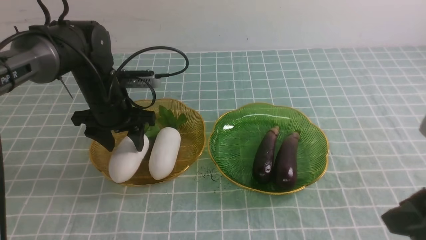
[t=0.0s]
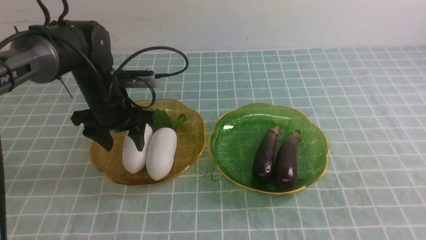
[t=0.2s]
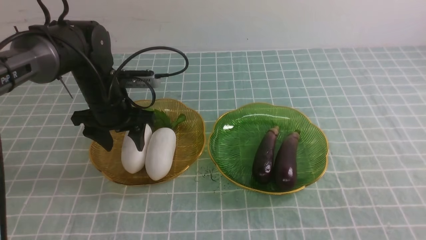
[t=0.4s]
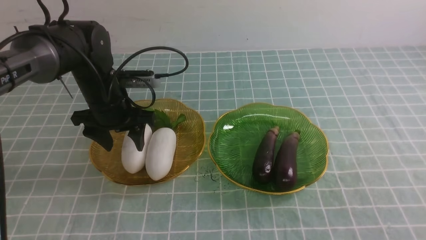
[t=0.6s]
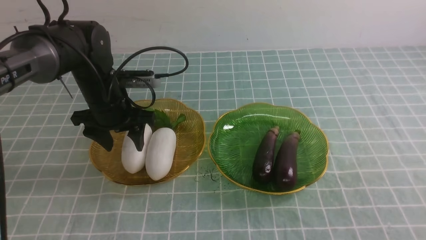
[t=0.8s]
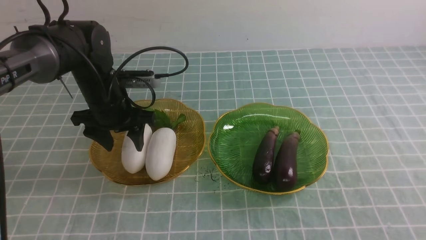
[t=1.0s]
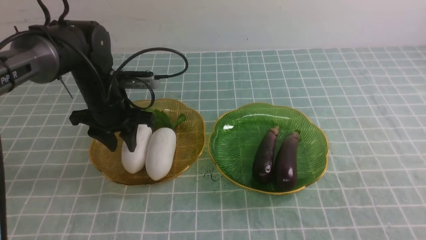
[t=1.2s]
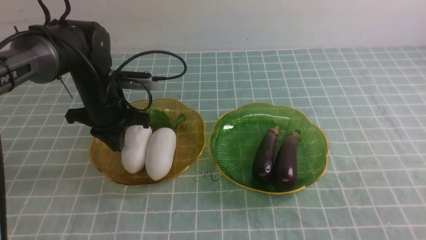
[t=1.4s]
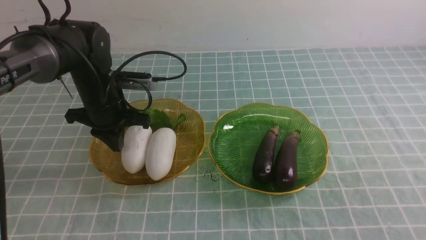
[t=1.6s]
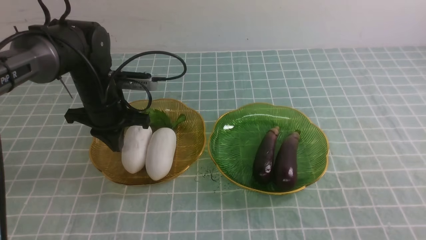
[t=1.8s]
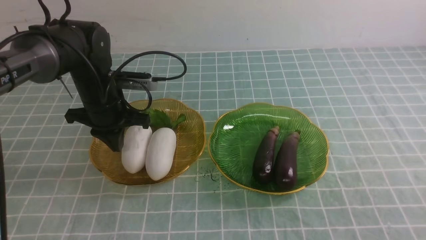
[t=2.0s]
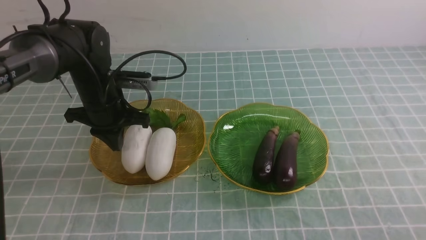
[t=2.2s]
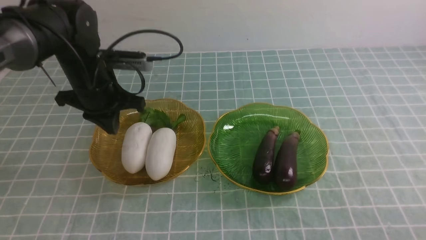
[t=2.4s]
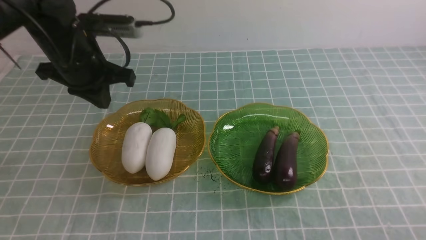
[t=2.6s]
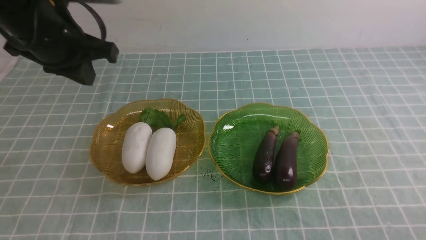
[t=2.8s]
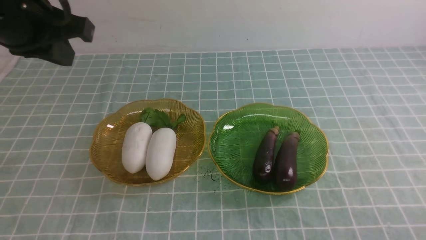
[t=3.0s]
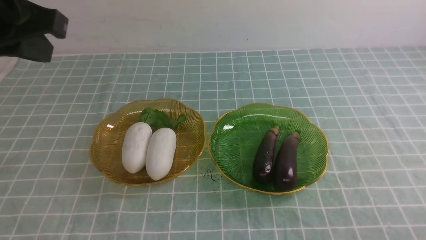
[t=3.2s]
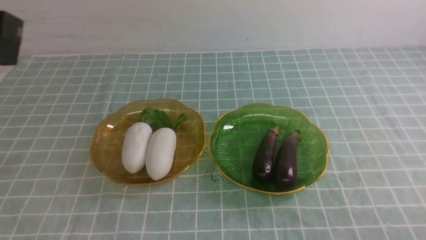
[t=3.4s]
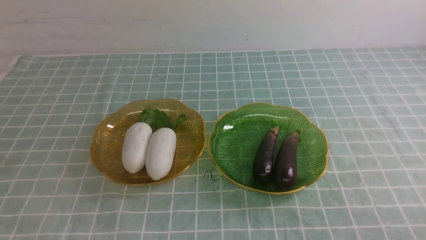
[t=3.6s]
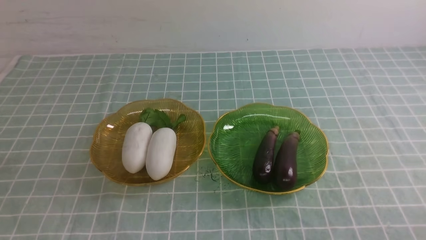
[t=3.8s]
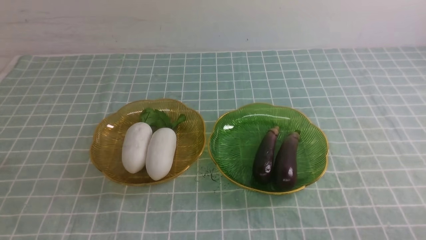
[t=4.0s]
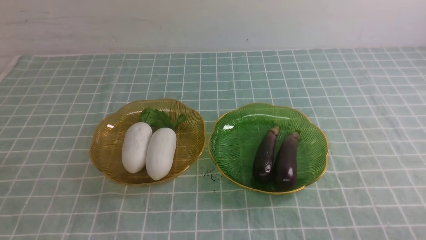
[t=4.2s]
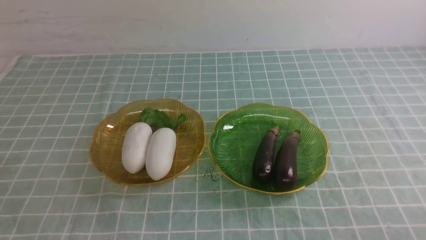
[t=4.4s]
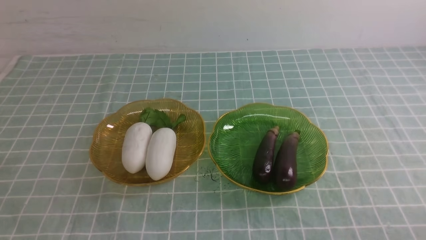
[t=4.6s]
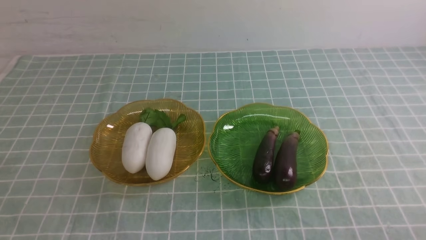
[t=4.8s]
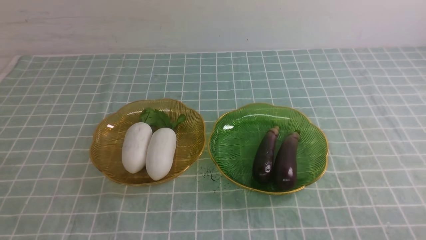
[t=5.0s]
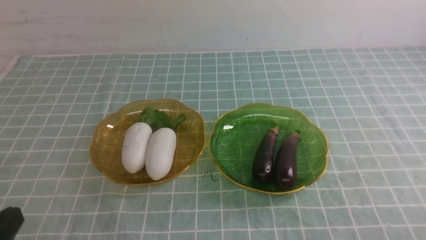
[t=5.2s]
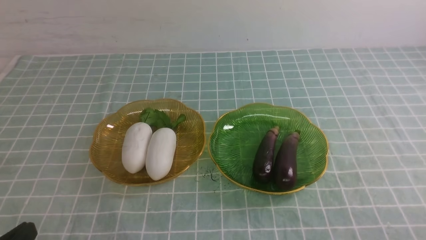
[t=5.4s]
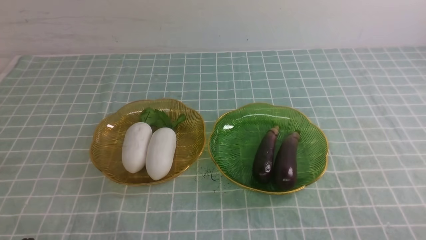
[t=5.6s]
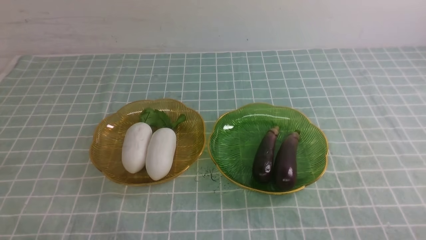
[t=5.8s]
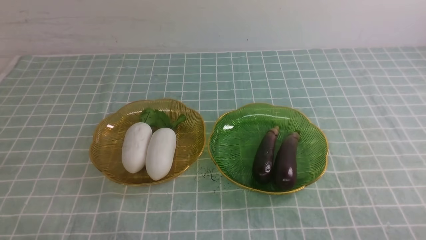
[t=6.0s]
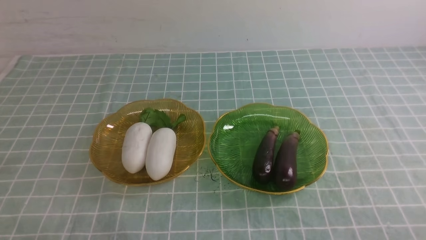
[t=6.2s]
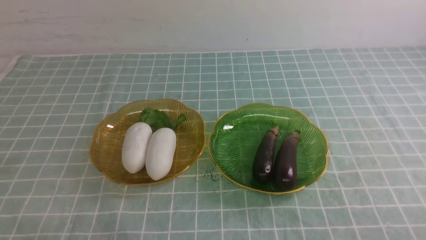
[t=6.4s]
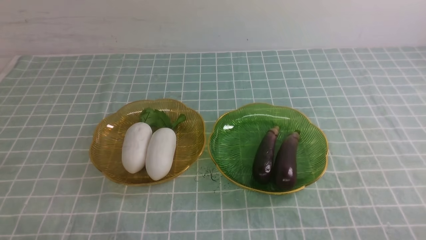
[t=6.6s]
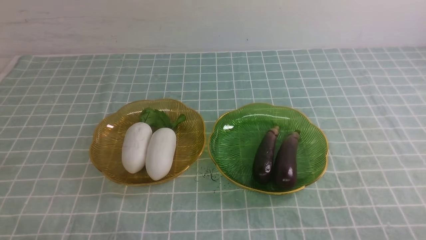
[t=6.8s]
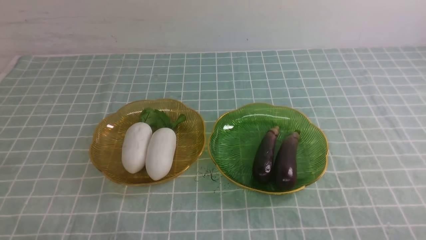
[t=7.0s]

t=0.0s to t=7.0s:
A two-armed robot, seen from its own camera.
t=0.0s to t=1.4s: The left gripper closes up. Meanwhile the right gripper shifts some 10 cm backward and to the right, and closes up.
t=1.4s to t=2.8s: The left gripper travels upward by approximately 15 cm. The right gripper goes some 10 cm downward.
t=2.8s to t=4.2s: The left gripper travels backward by roughly 30 cm.
t=5.6s to t=7.0s: The two grippers keep their place.

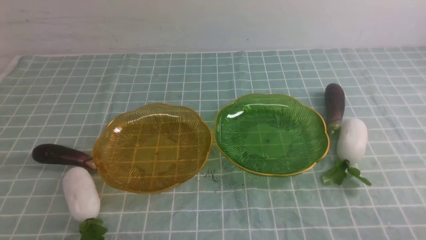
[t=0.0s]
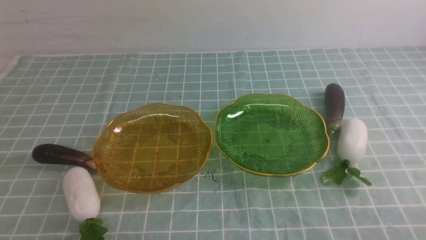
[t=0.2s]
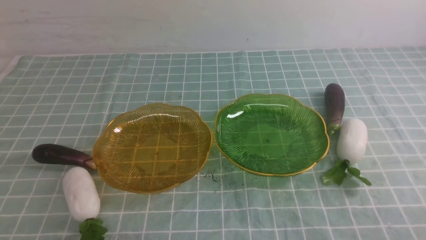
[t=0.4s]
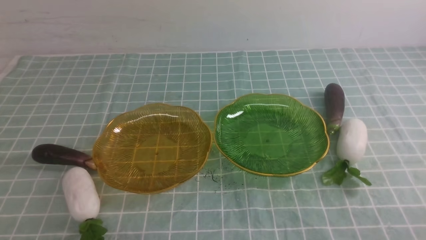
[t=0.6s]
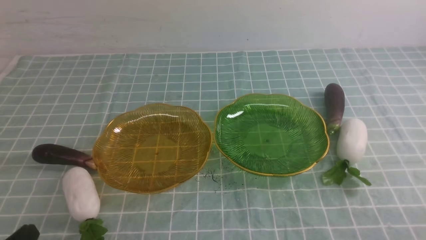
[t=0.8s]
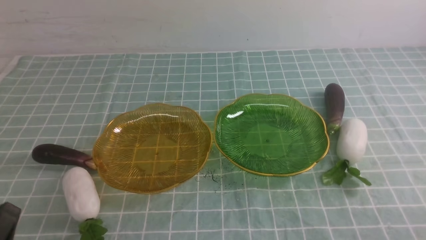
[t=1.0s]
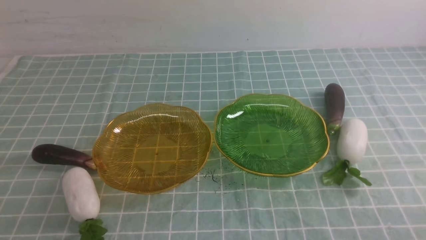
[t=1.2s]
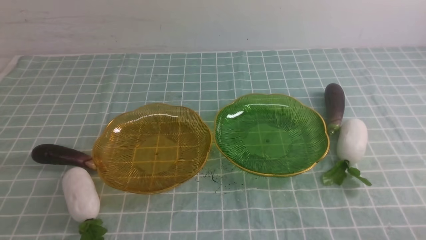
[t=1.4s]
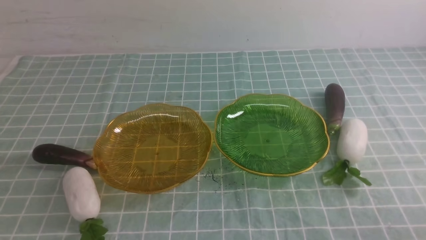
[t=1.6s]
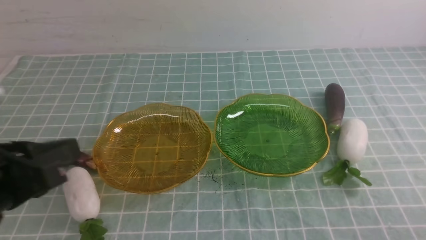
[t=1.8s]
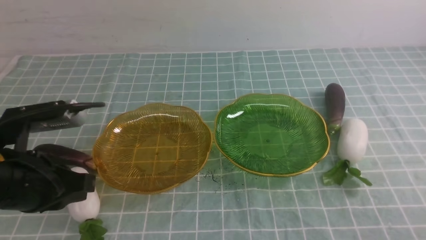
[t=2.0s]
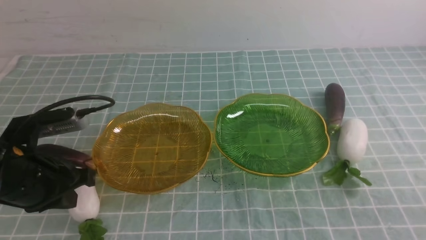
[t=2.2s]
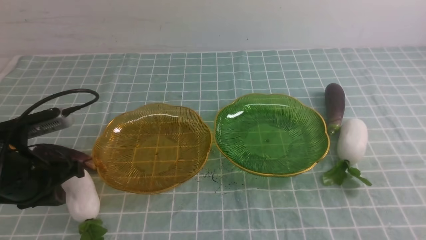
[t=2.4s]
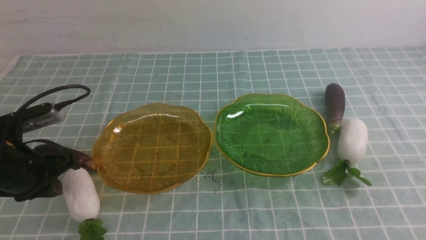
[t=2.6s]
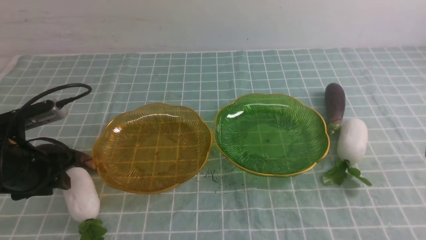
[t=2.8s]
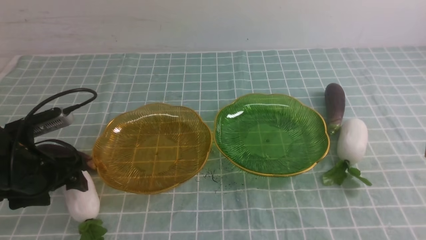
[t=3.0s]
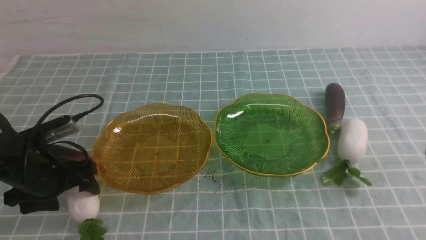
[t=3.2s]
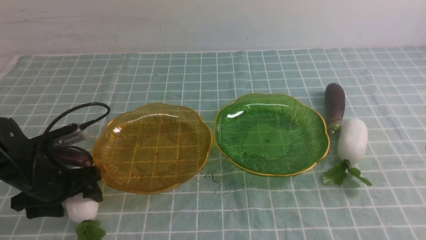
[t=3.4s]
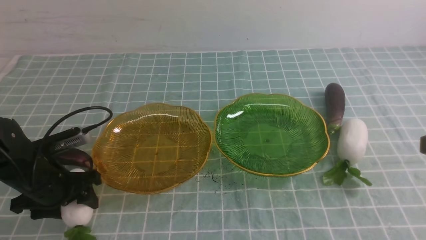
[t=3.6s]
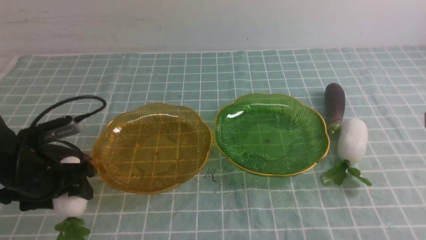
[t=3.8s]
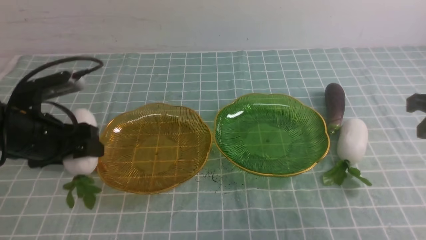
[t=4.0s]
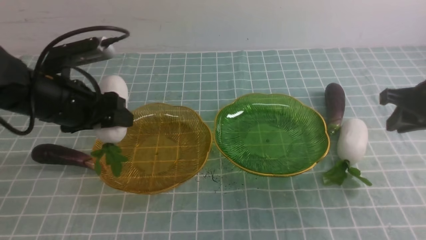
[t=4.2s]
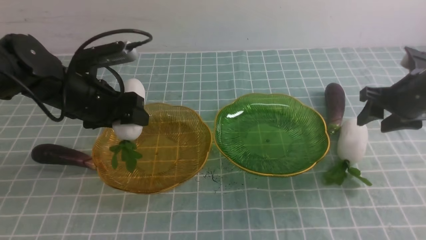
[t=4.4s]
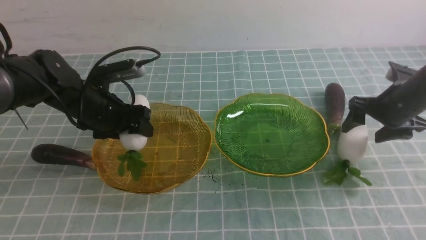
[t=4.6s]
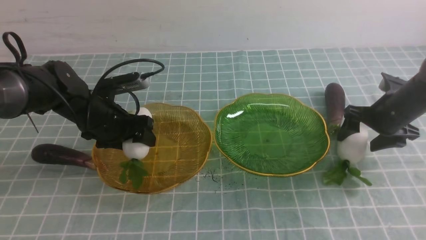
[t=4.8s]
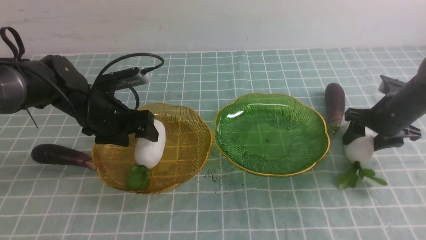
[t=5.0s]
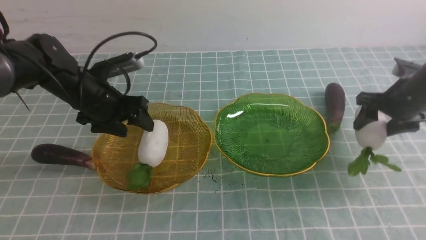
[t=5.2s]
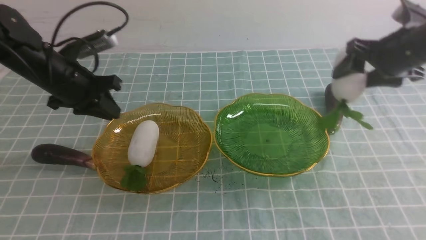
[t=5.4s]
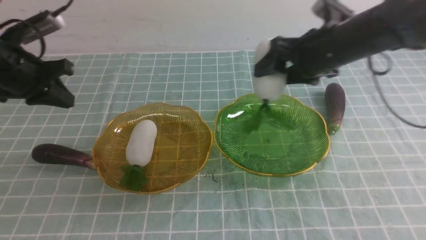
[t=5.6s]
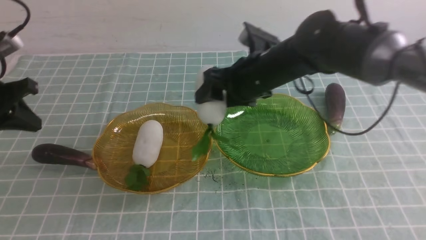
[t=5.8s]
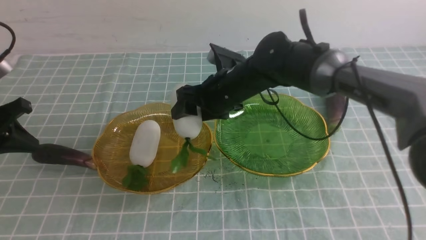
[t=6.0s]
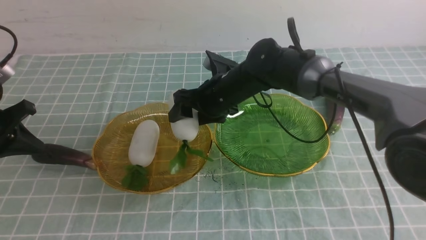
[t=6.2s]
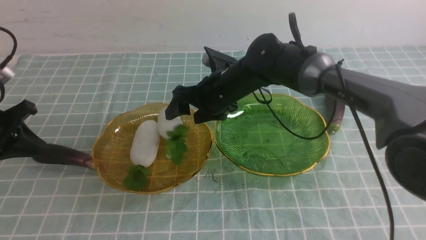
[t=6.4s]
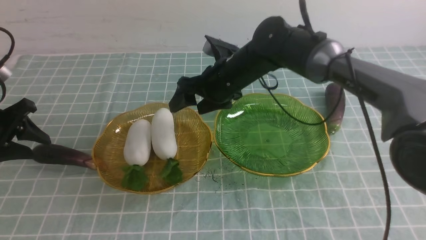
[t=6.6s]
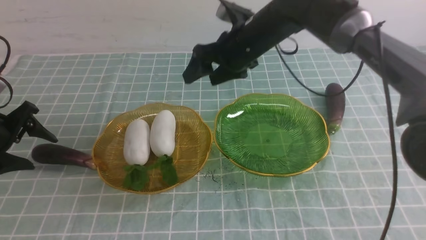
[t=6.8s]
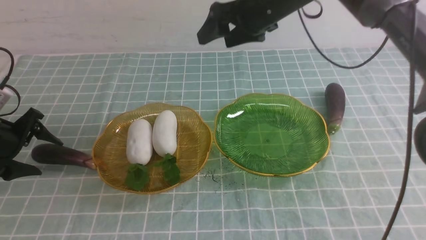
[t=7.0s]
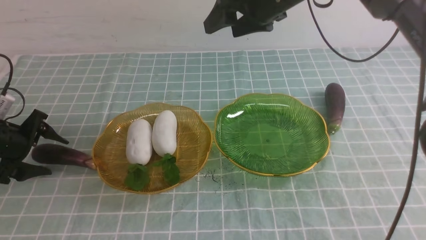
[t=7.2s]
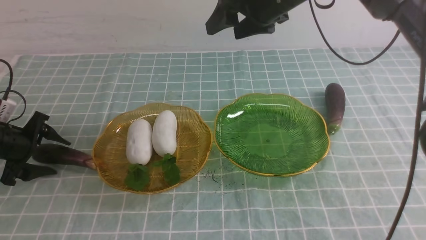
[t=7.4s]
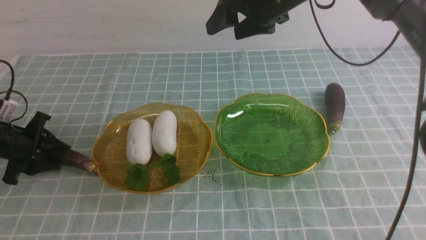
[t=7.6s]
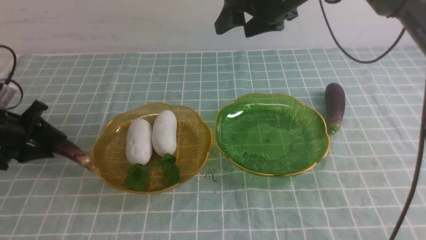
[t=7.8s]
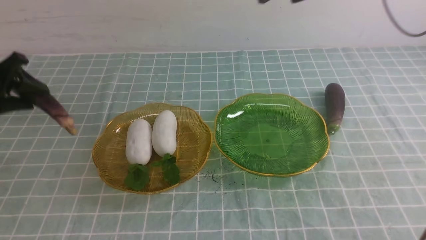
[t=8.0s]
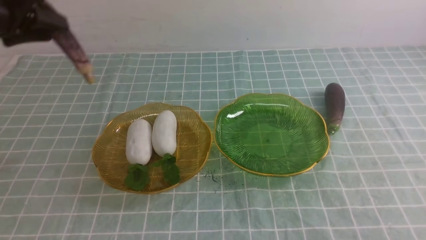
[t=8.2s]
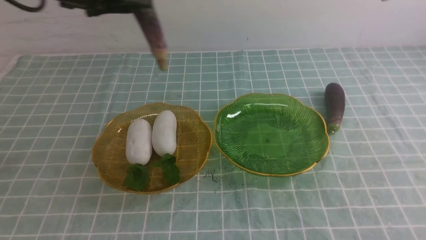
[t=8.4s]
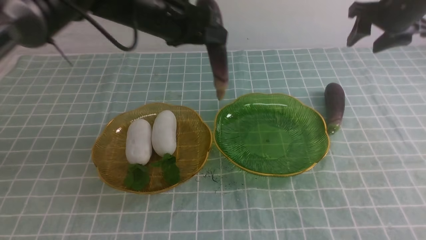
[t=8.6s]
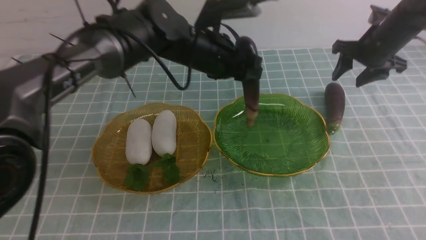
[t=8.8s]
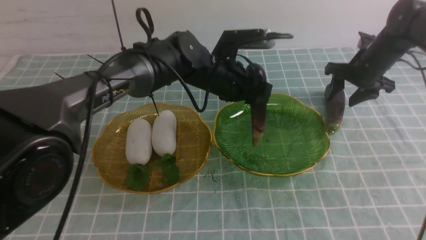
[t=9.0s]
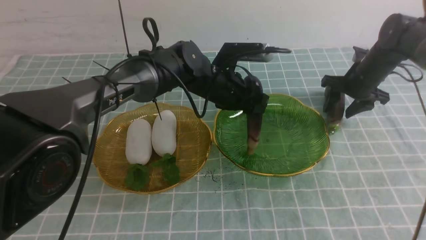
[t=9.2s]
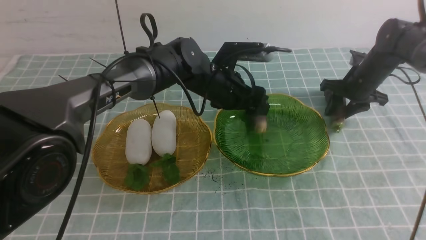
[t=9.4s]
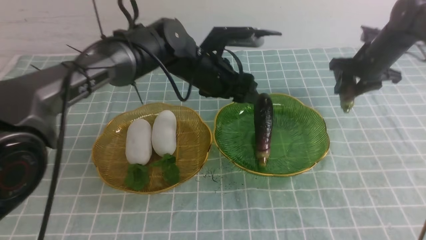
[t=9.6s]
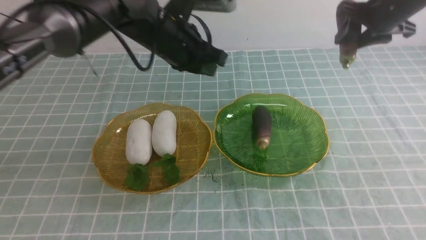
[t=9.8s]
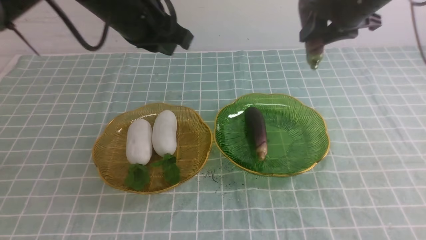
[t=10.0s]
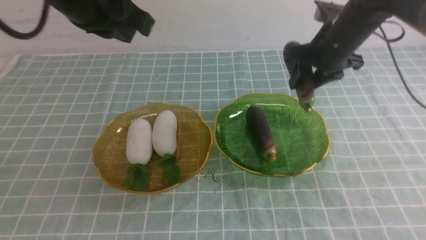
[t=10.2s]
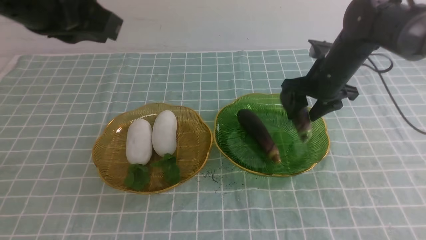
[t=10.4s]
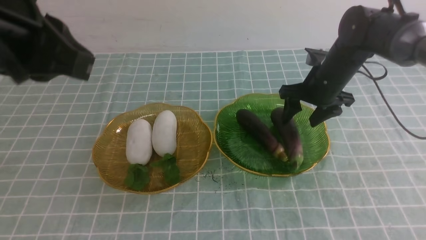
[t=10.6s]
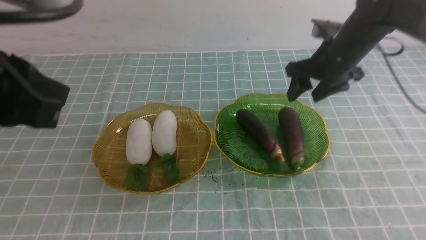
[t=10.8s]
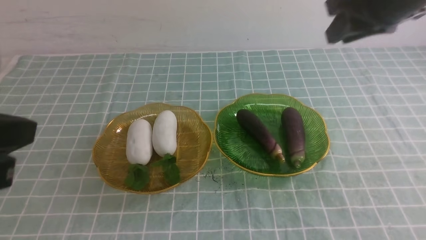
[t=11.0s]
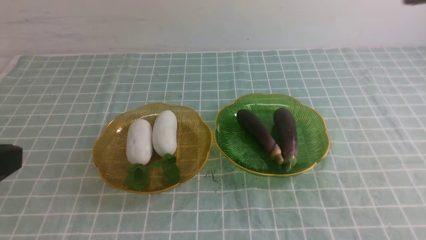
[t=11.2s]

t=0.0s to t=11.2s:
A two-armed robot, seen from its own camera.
Step, t=0.0s to t=4.6s: use the left arm to grab a radish and put it into the left plate.
Step, t=4.8s to t=6.4s: use the right arm to grab a radish and put it into the left plate.
Step, t=6.6s to t=9.4s: use the left arm to grab an eggplant and put it into the right plate.
Step, t=9.8s to t=10.6s: use the right arm to grab an eggplant and put it into the right plate.
t=1.6s to t=3.2s: The left gripper moves forward and downward, about 25 cm, and opens.
t=3.2s to t=4.8s: The left gripper shifts some 15 cm forward and to the right; the right gripper is displaced forward and downward by approximately 30 cm, and opens its fingers.
t=4.8s to t=6.4s: The left gripper heads to the left and backward, covering roughly 20 cm, and closes; the right gripper heads to the left, covering roughly 30 cm.
t=6.4s to t=8.0s: The left gripper shifts about 5 cm forward, moves approximately 10 cm downward and comes back, and opens its fingers; the right gripper goes approximately 20 cm upward and to the right.
t=8.0s to t=9.6s: The right gripper is displaced downward and to the right by roughly 25 cm, and closes up. The left gripper moves to the right, roughly 35 cm.
t=9.6s to t=11.2s: The left gripper heads backward, to the left and upward, covering roughly 40 cm, and closes its fingers; the right gripper moves up and down over some 25 cm, changing direction 2 times, and closes its fingers.
